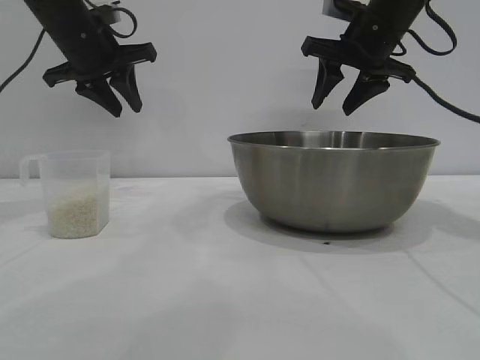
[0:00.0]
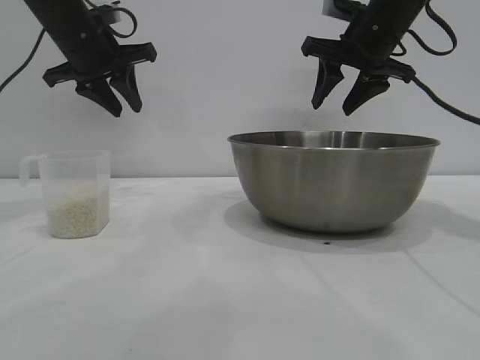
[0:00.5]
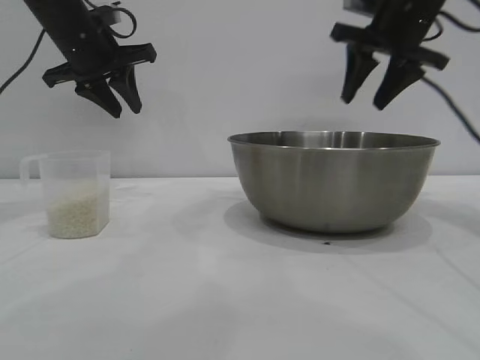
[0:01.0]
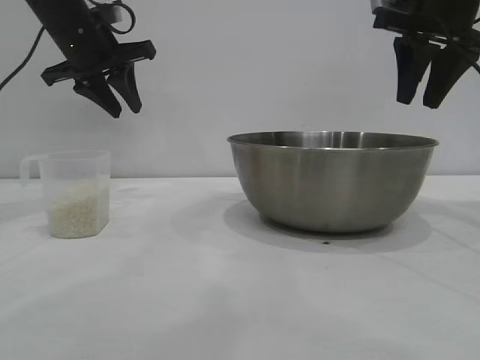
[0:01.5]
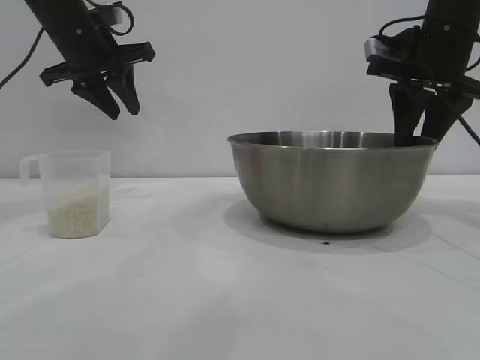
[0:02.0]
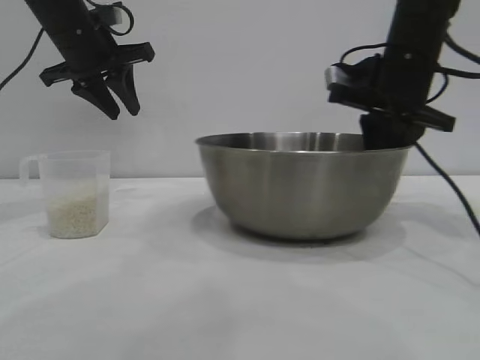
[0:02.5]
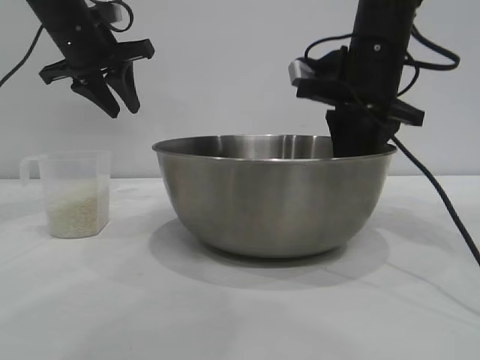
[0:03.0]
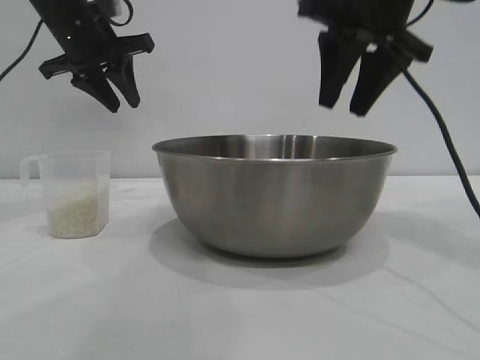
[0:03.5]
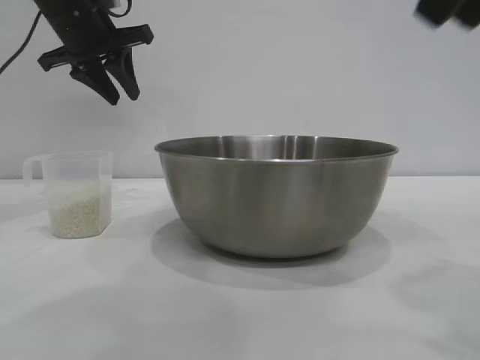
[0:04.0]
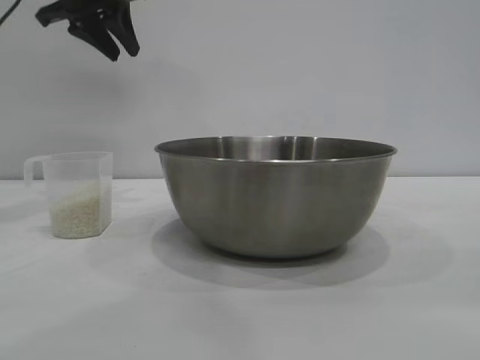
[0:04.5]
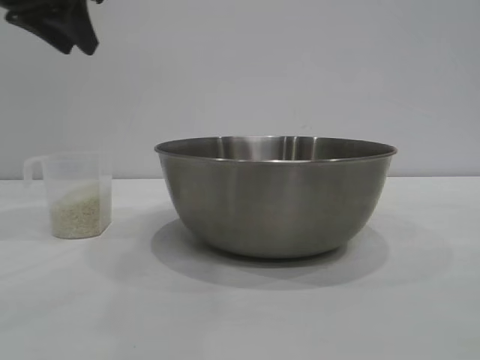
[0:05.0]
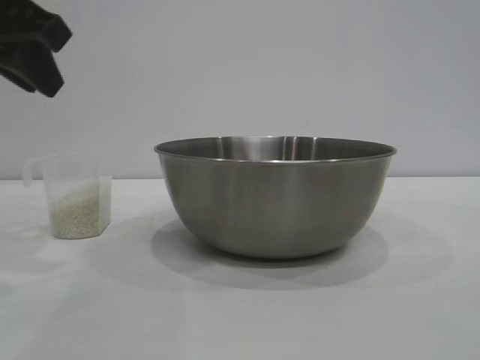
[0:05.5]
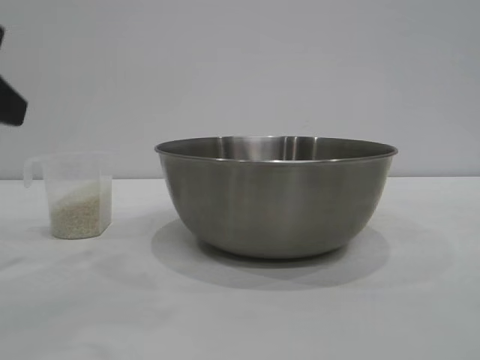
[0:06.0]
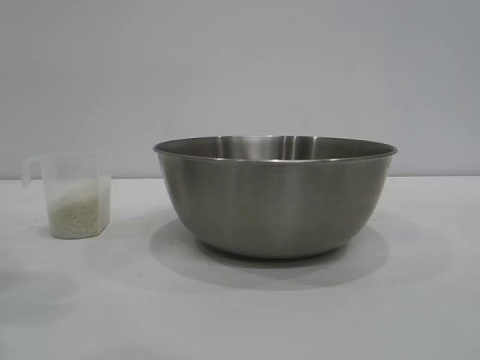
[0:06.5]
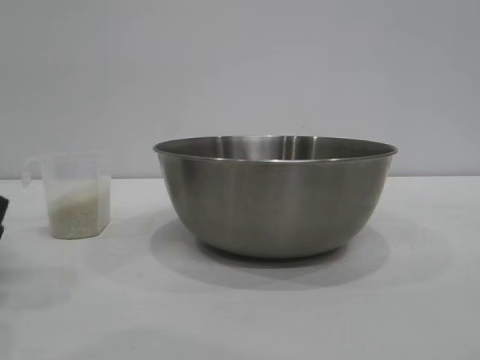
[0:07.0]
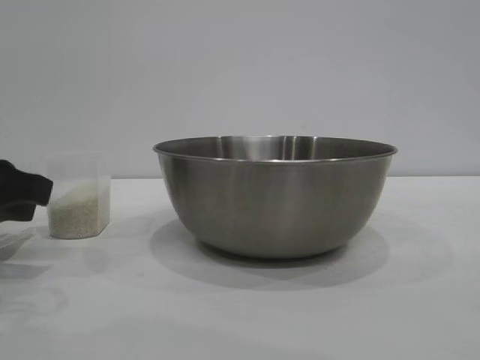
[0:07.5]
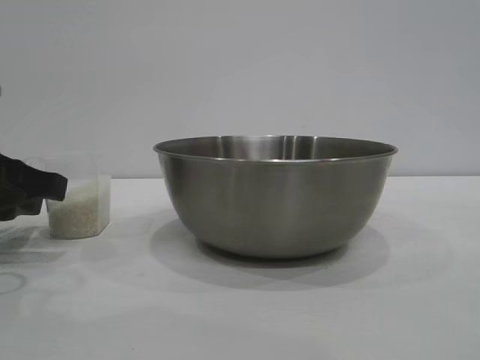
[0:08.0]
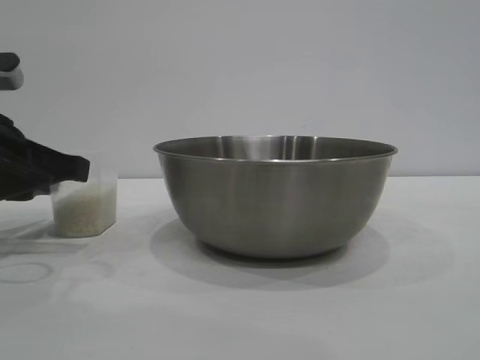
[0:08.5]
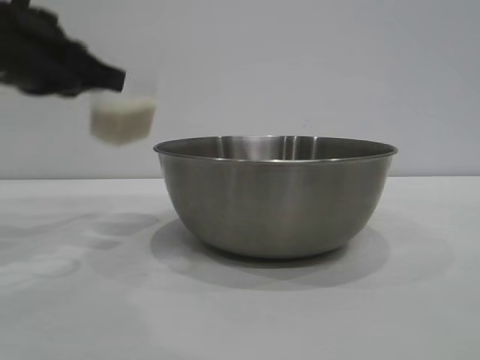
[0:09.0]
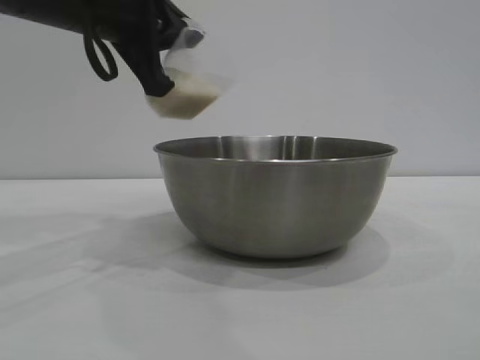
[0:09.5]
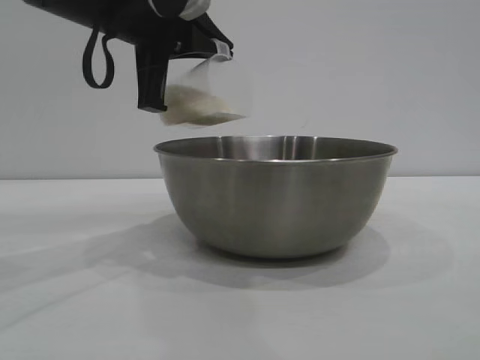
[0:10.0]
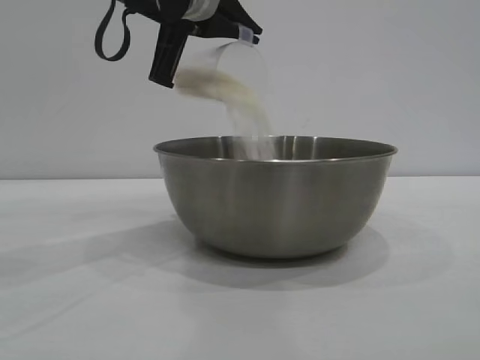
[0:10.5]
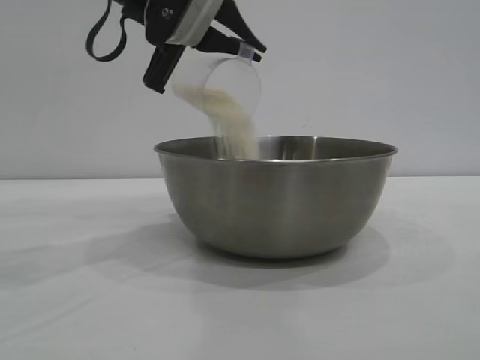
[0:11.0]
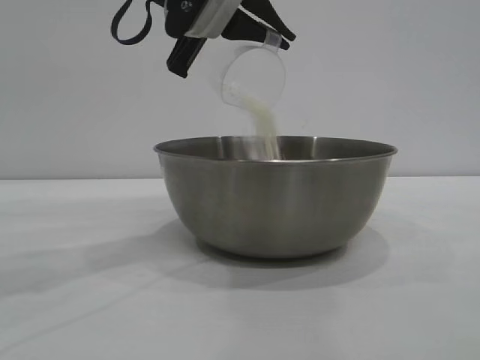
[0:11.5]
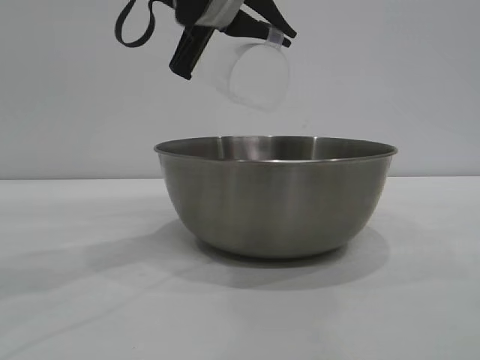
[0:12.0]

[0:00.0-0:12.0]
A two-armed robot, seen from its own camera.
Task of the whole recording: the right gripper grasp the rice container and place it in the center of the table, the left gripper grasp the rice scoop and pour the rice into the rice container.
Step, 0:00.0 to 0:03.0: Move the bowl to the center of view with the right gripper.
Step, 0:03.5 to 0:08.5: Pick up the cup with rice in it with the left gripper.

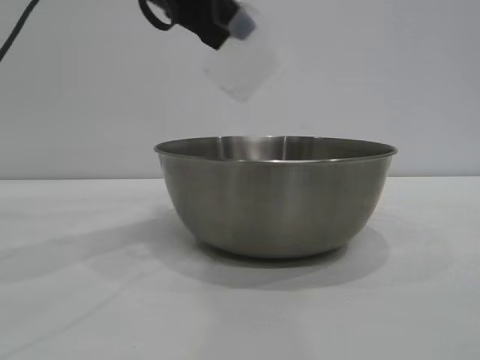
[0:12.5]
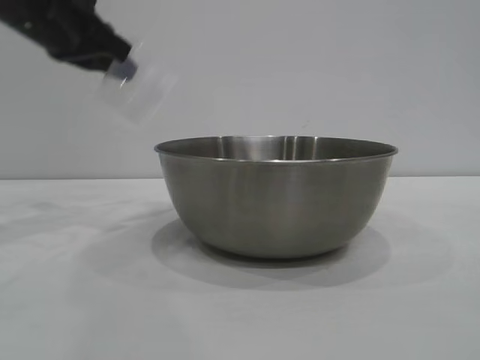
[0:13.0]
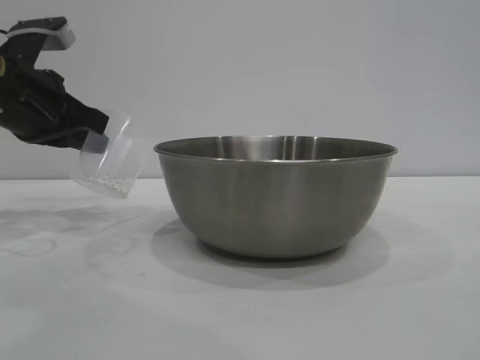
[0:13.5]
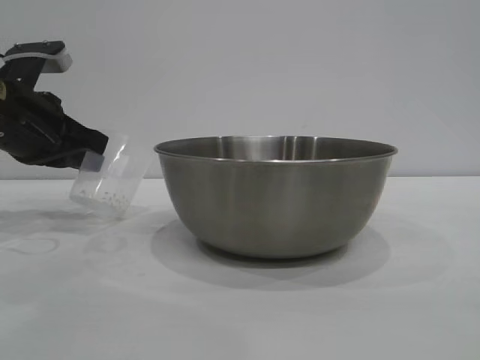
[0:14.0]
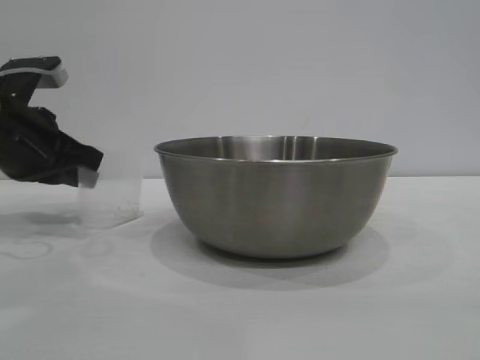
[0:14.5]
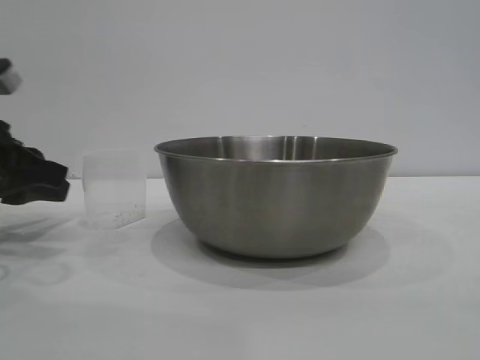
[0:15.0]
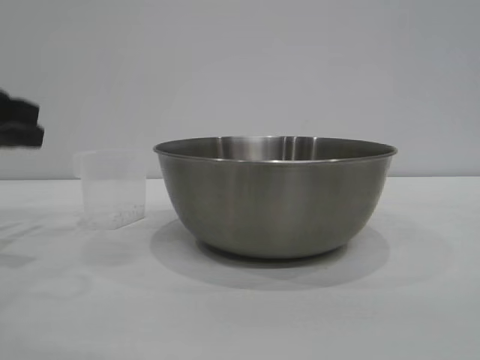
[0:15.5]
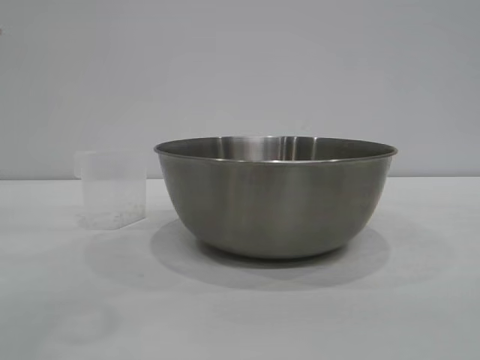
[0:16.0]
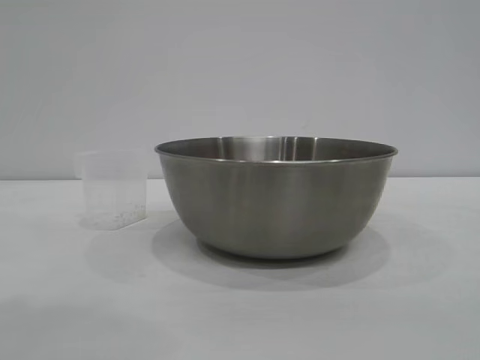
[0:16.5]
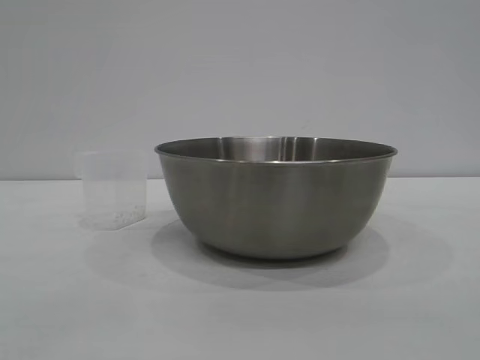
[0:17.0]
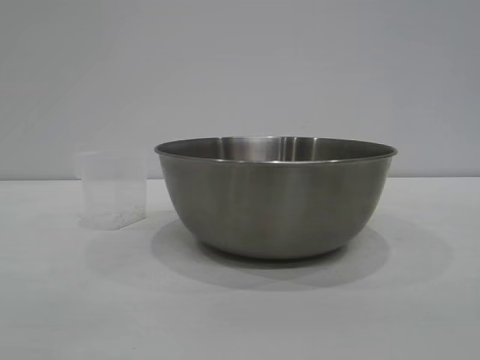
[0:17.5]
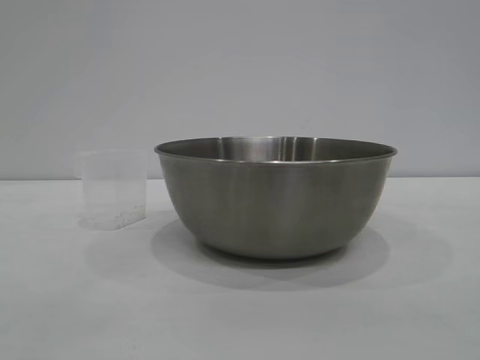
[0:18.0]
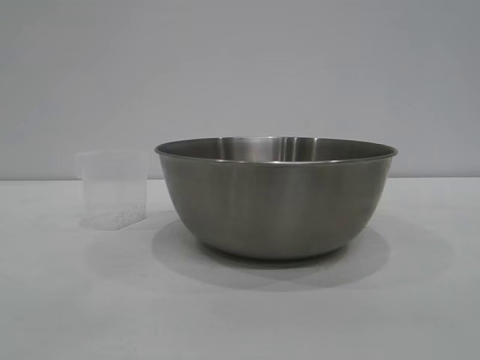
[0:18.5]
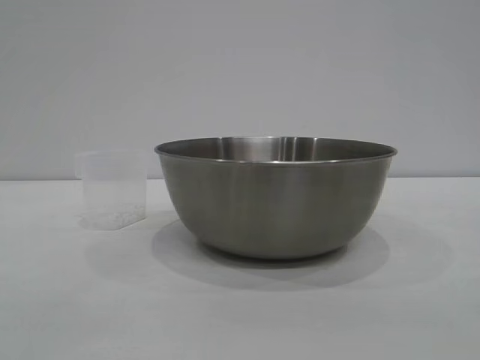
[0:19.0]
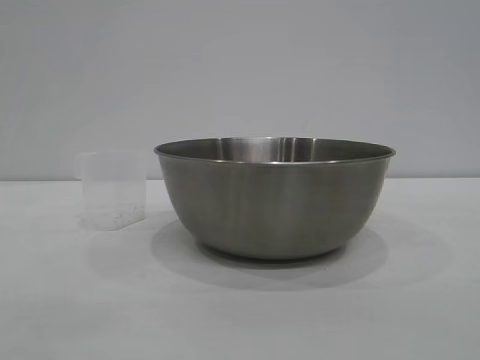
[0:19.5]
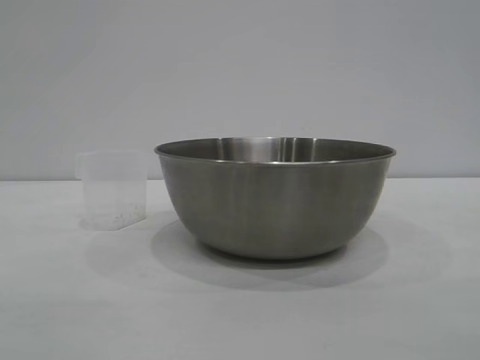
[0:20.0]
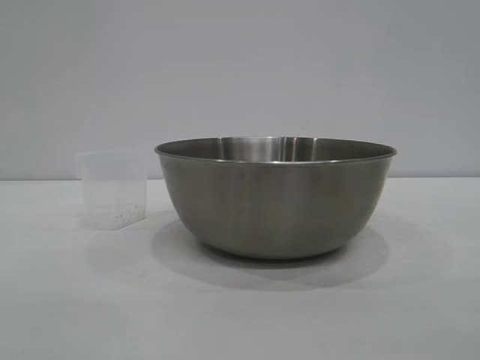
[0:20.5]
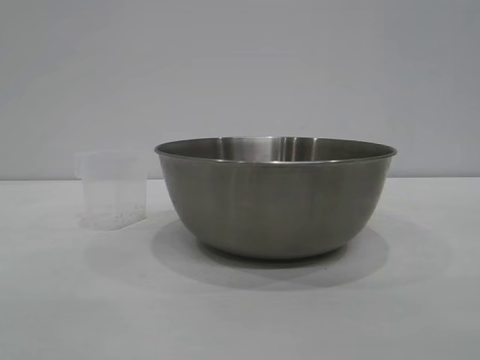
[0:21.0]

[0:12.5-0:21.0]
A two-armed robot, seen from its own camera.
Task of the whole recording: the right gripper grasp the rice container and place it in the center of the table, the left gripper grasp the rice scoop and pour the rice into the rice container.
Step, 0:12.5 to 0:14.5: Place the cup on the table with the left gripper.

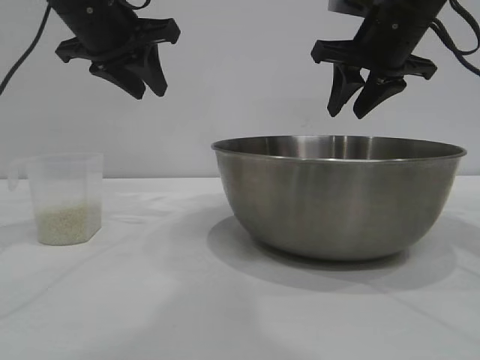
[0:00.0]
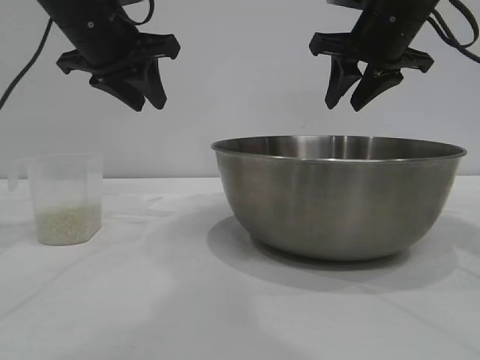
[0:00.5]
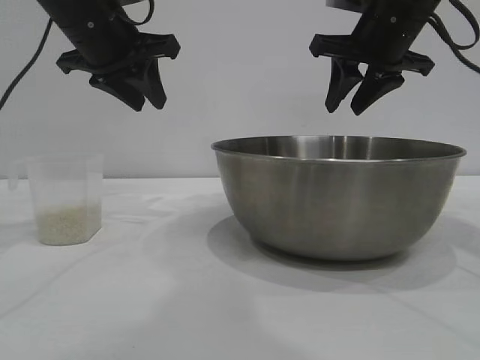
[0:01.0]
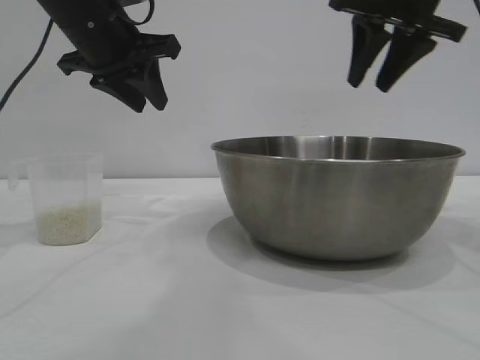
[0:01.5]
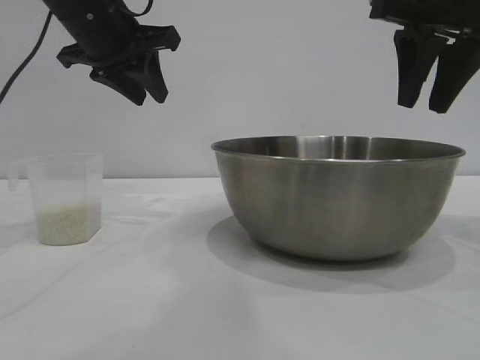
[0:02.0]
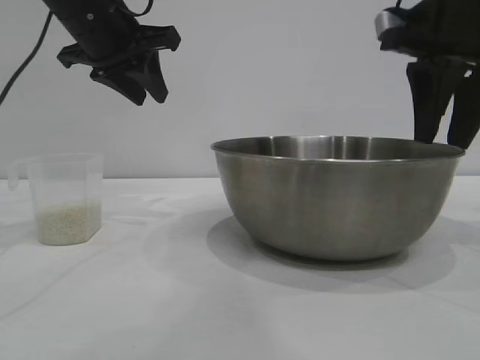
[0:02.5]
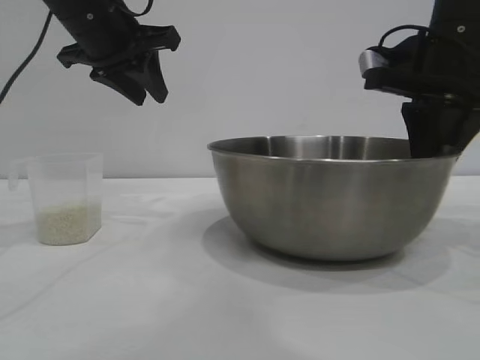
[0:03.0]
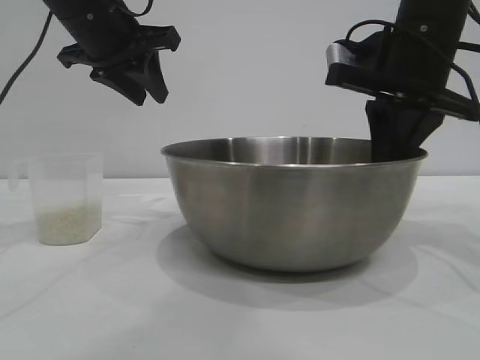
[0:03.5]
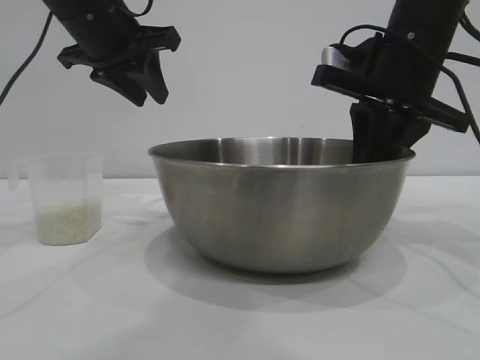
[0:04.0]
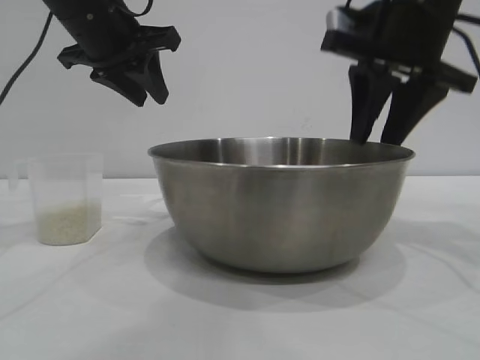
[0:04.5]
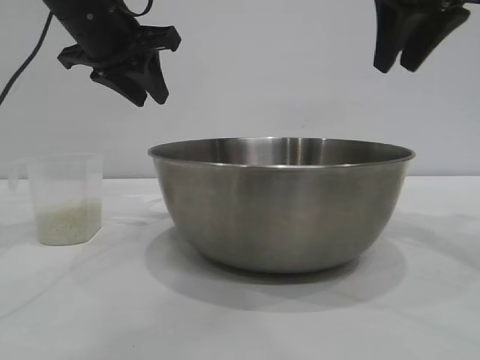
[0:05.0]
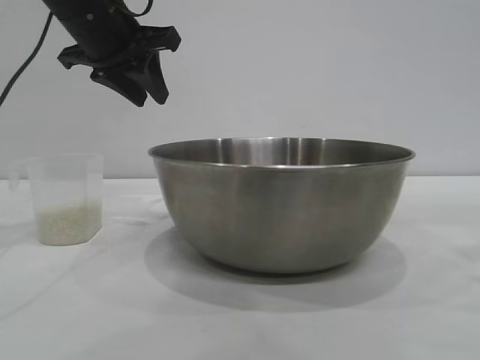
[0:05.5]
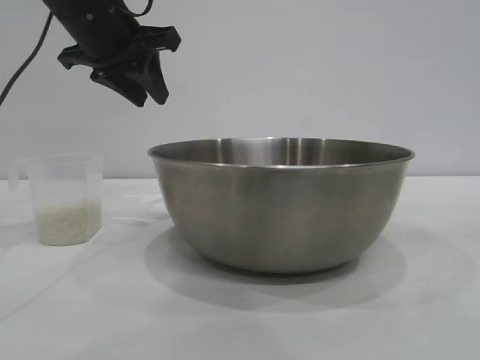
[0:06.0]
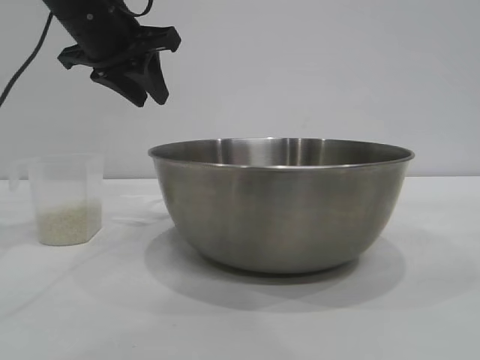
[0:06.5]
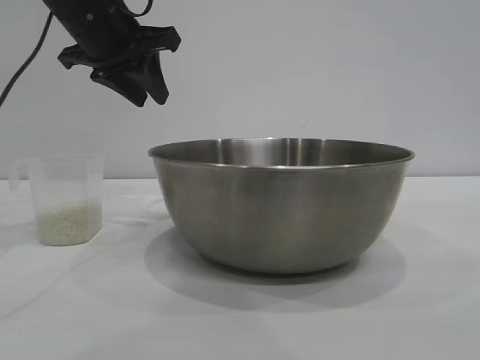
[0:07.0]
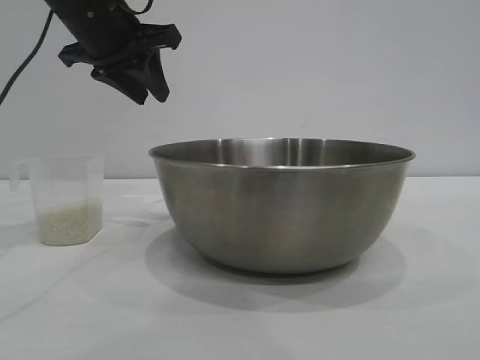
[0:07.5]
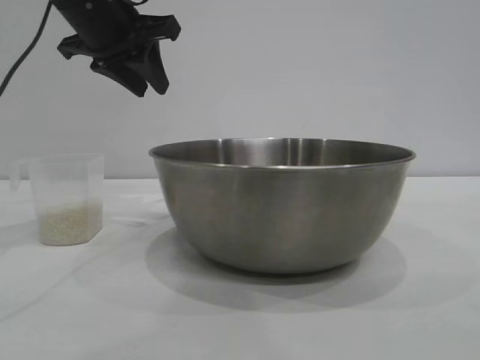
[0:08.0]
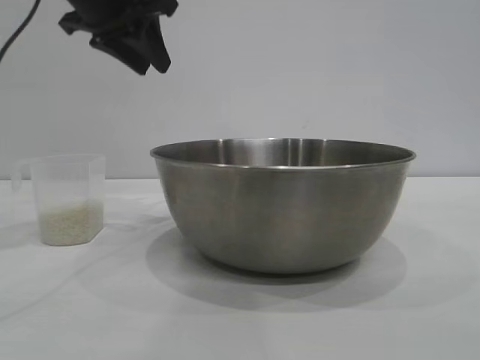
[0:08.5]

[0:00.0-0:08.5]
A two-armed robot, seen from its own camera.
Task of the whole recording: the right gripper grasp the rice container and place it in the center of the table, the left gripper grasp the rice scoop and pour the rice into the rice container.
Step, 0:00.0 to 0:04.5: Move the bowl to the center of view with the right gripper.
